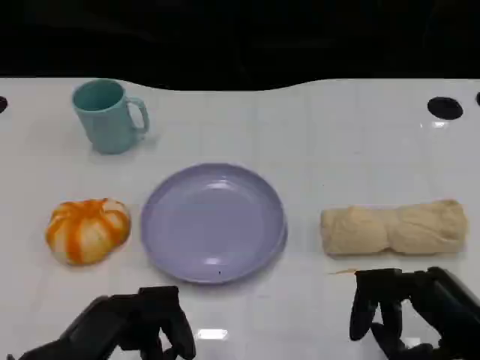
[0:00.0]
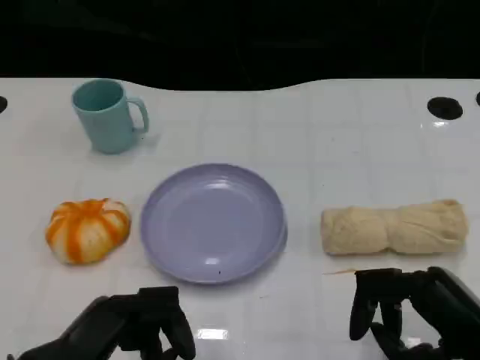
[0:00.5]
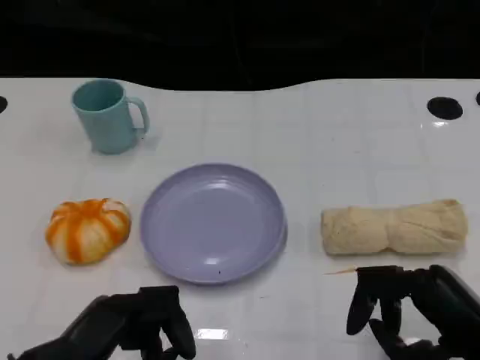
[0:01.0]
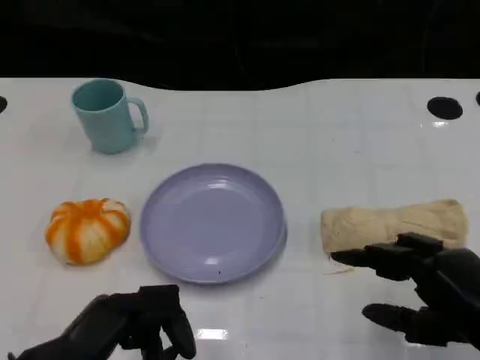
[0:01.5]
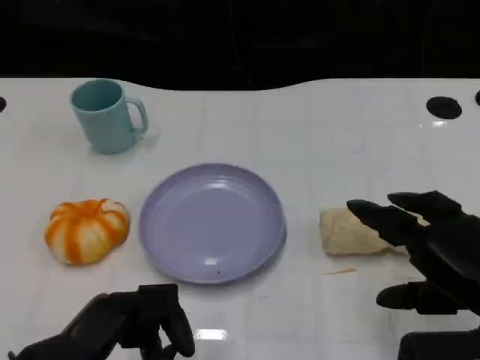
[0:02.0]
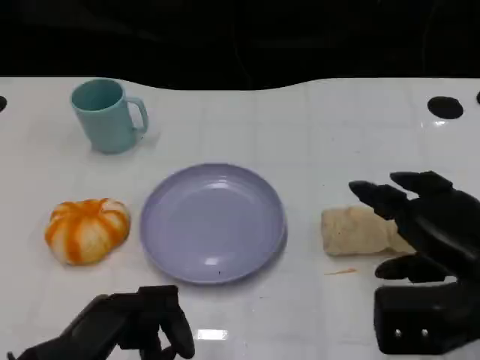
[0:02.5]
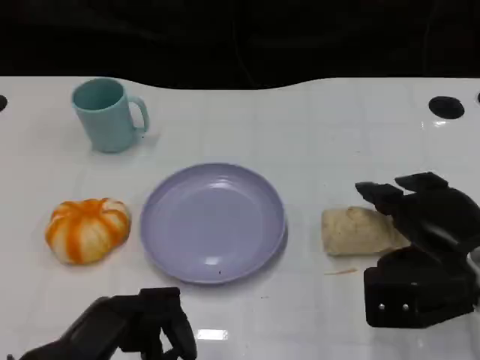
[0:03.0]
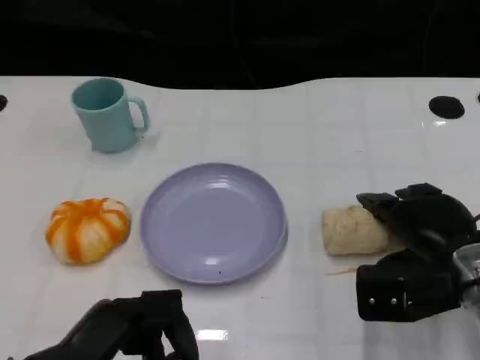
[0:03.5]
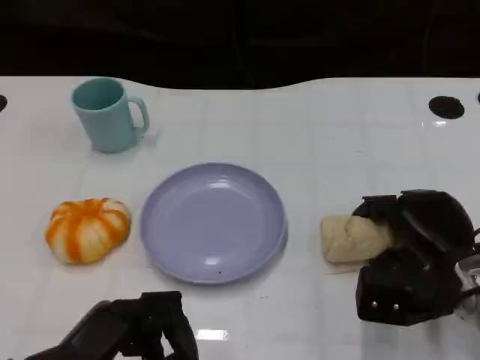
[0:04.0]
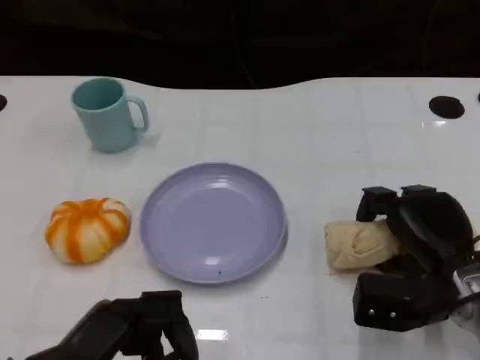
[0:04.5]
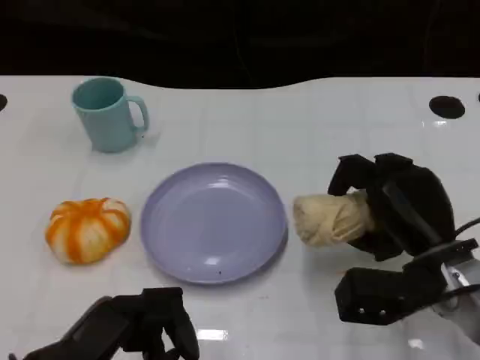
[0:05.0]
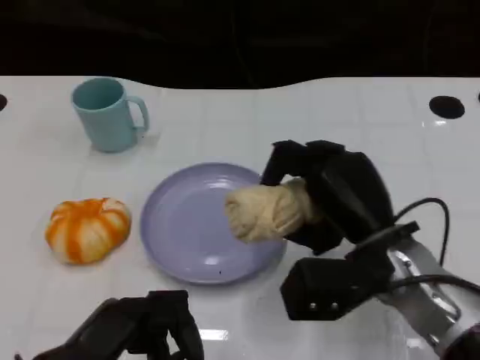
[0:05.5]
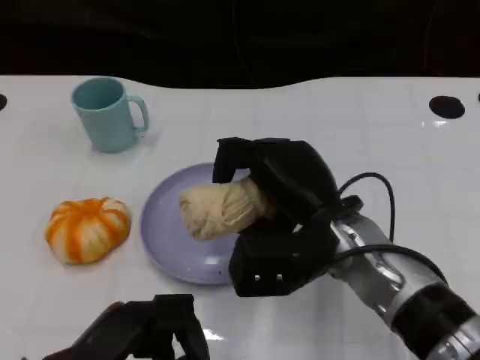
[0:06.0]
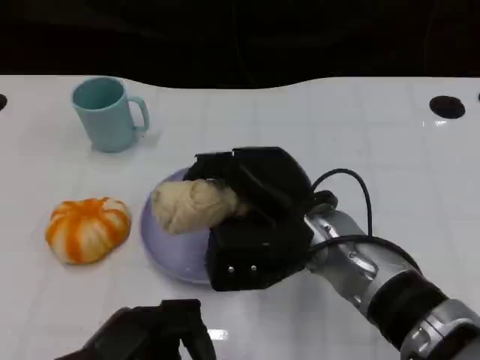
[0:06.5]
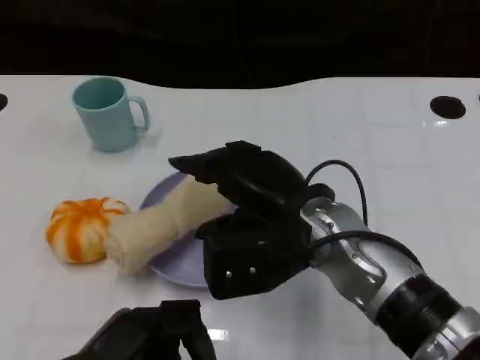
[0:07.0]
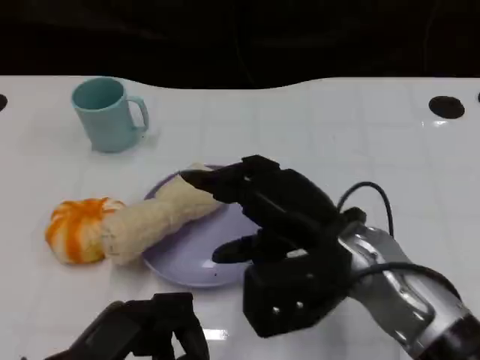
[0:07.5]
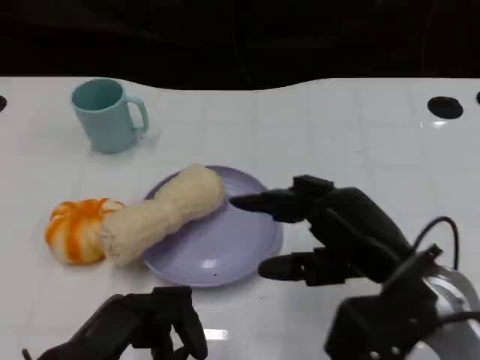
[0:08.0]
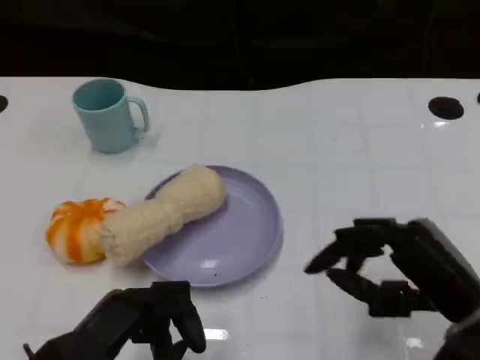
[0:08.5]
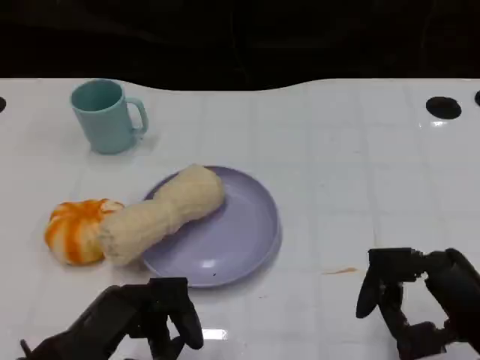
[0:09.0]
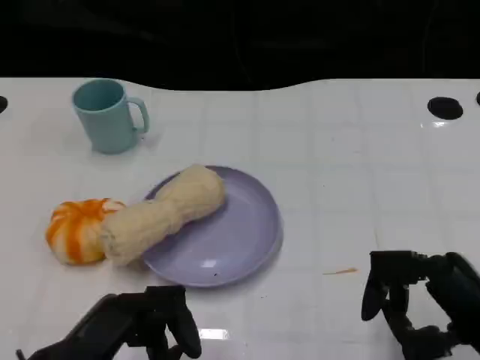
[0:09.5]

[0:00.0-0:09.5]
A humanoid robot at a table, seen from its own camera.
Task of the whole recording: Grasp the towel on the left side of the plate with the left hand and place it into the plate.
0:02.0 to 0:04.0: The right hand heads downward and forward, covering some 10 cm.
0:04.0 to 0:05.5: The right hand moves to the left and upward, some 10 cm.
0:07.5 to 0:09.5: The right hand shifts approximately 15 cm to the right and backward.

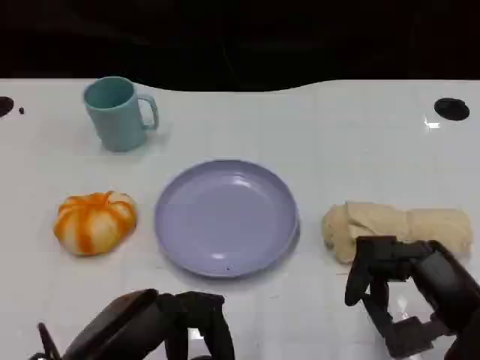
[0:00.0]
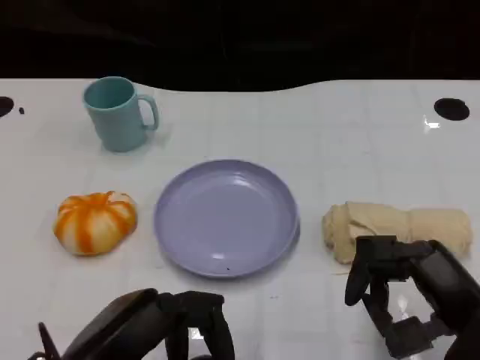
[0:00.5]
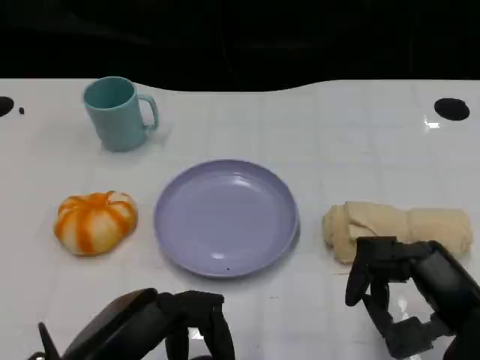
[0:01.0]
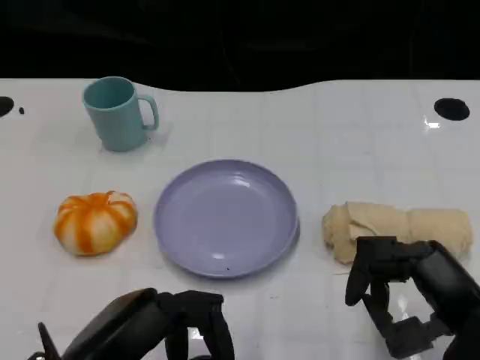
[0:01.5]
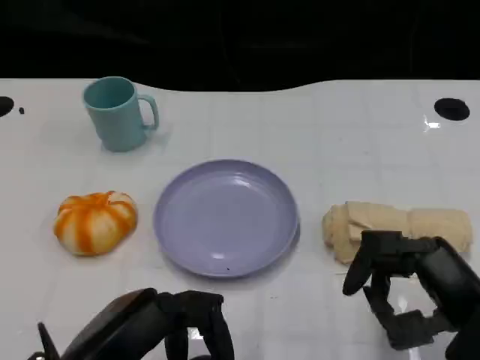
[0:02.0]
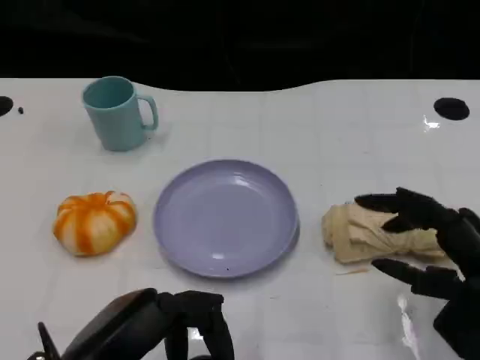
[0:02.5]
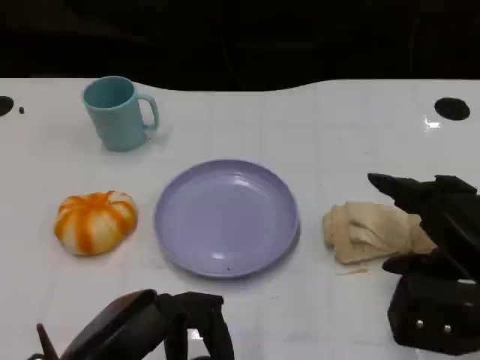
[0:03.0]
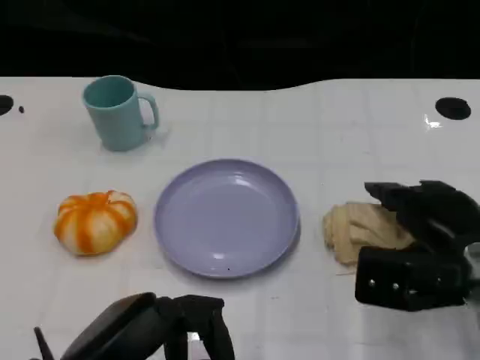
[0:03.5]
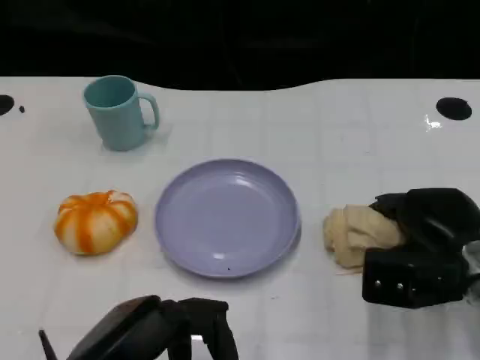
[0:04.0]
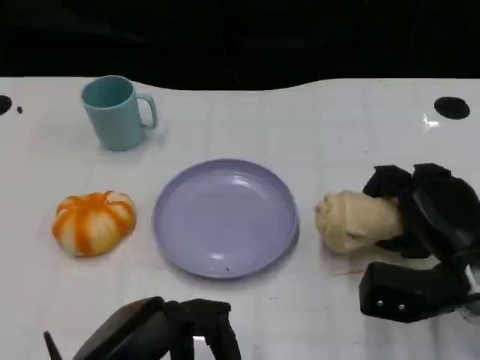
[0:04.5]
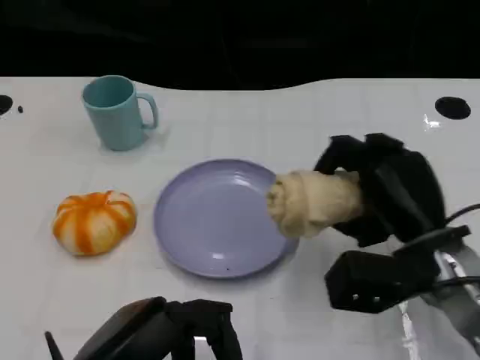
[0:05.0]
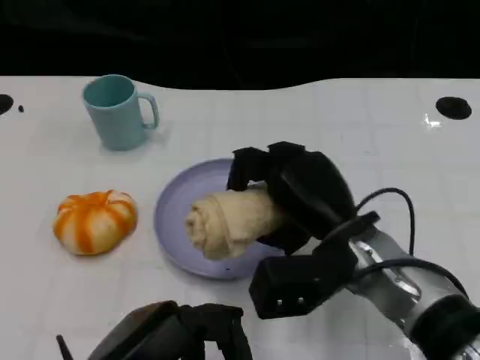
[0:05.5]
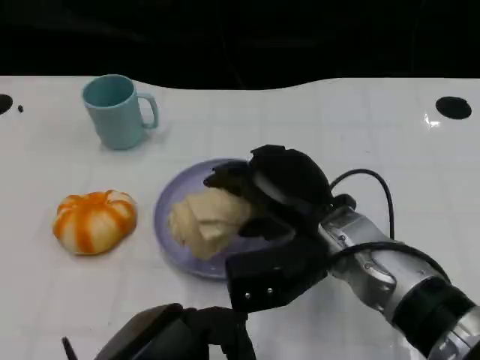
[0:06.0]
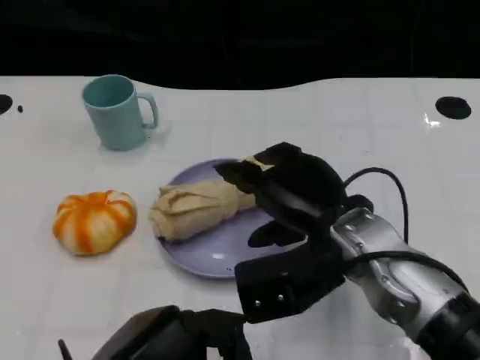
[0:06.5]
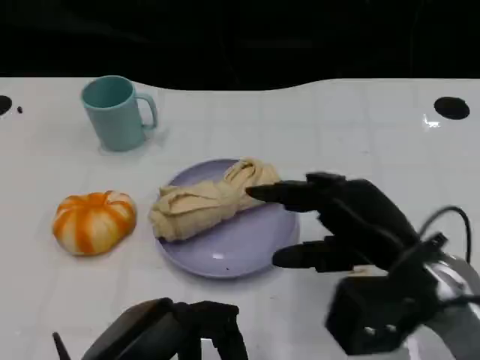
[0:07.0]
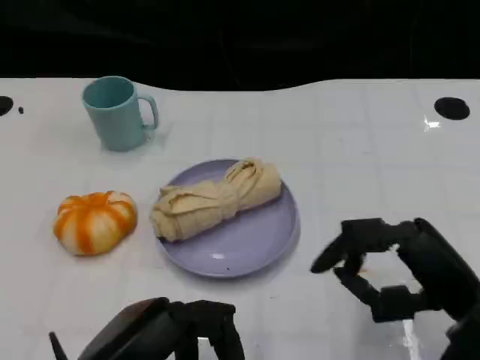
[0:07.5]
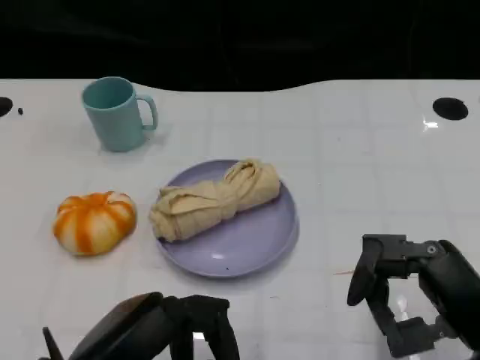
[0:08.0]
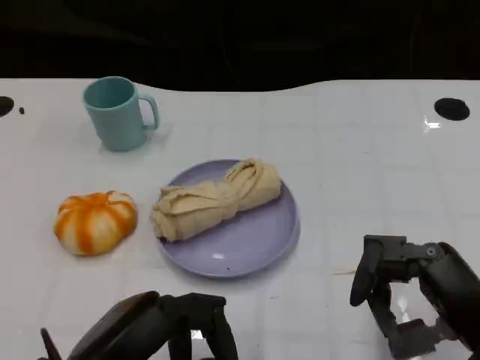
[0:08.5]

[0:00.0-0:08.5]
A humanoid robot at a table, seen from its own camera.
Task of the whole recording: Grasp the towel on the left side of the plate with the left hand and place it into the plate.
0:00.0 to 0:02.0: Both hands stay about where they are.
0:02.0 to 0:04.0: The right hand goes roughly 10 cm forward.
0:04.0 to 0:06.5: The right hand shifts about 15 cm to the left and upward.
0:06.5 to 0:08.5: The right hand is displaced to the right and backward by approximately 15 cm.

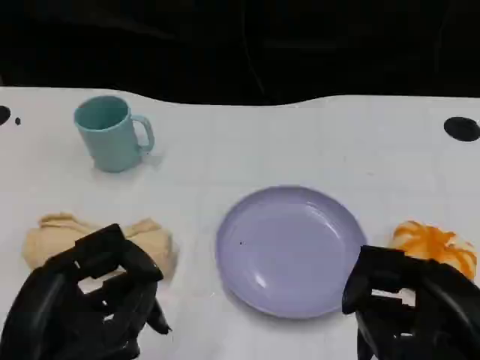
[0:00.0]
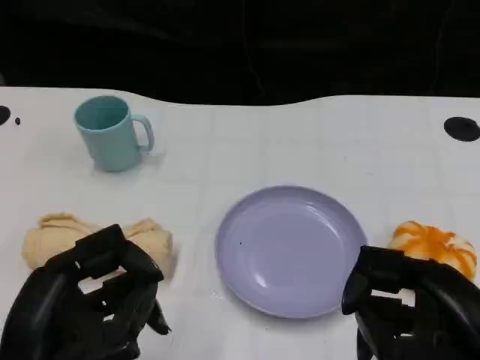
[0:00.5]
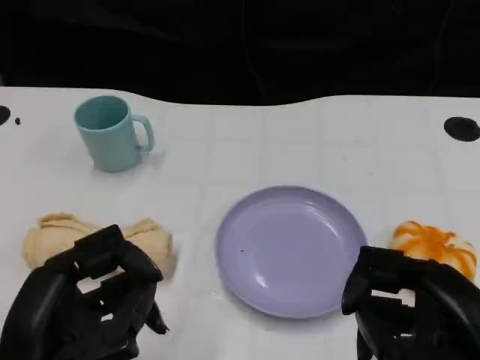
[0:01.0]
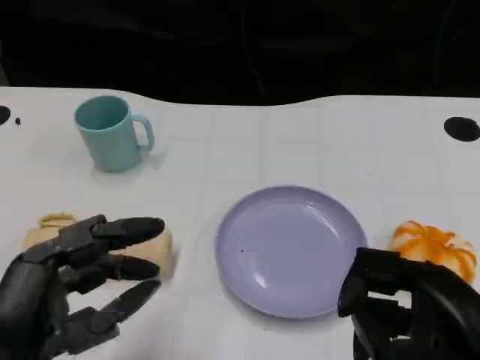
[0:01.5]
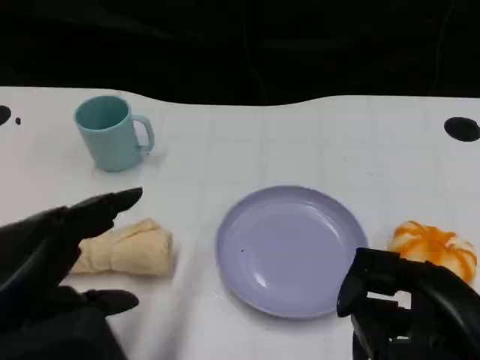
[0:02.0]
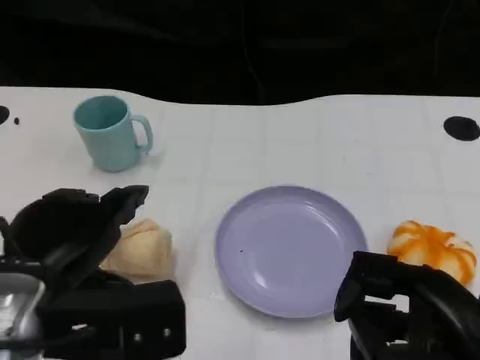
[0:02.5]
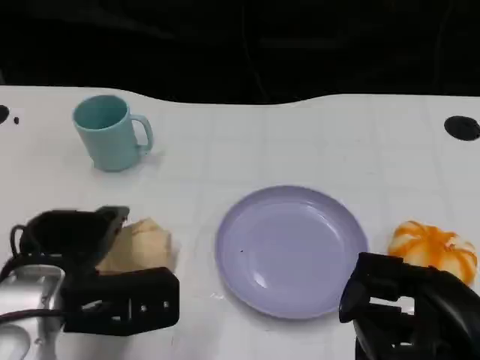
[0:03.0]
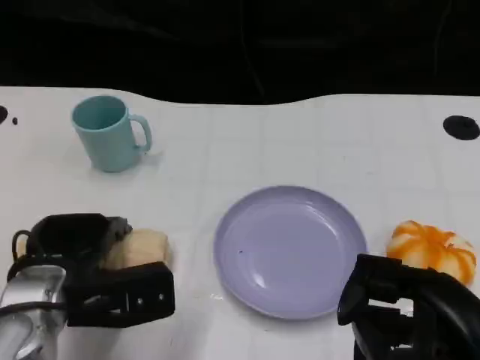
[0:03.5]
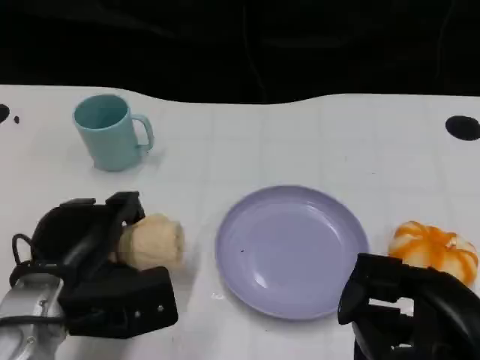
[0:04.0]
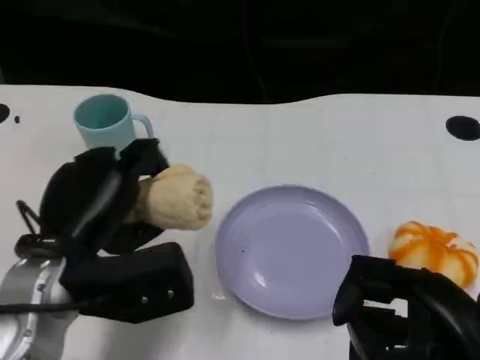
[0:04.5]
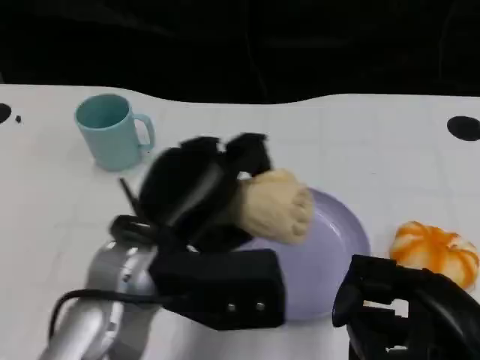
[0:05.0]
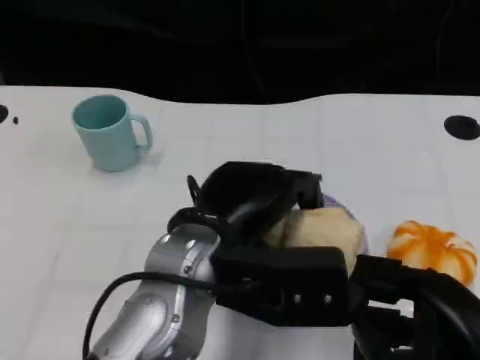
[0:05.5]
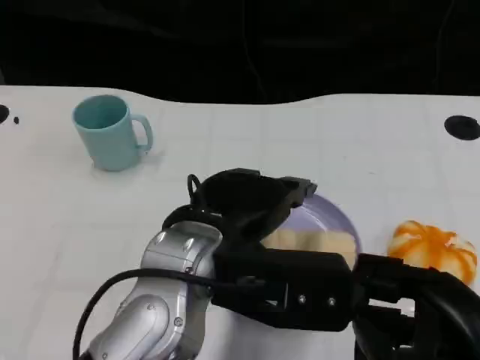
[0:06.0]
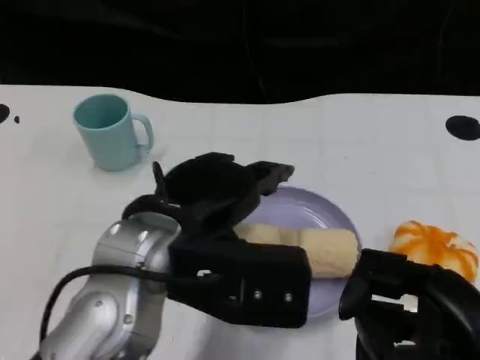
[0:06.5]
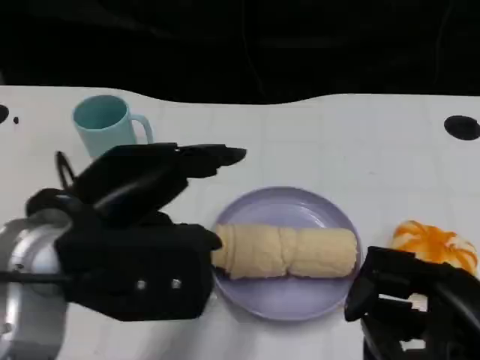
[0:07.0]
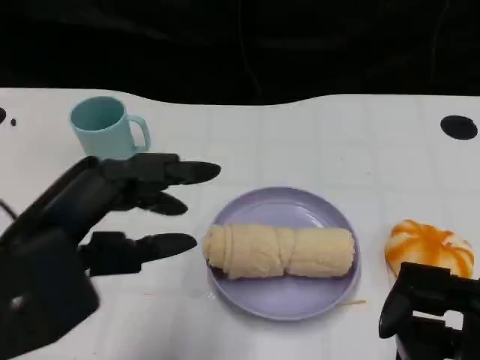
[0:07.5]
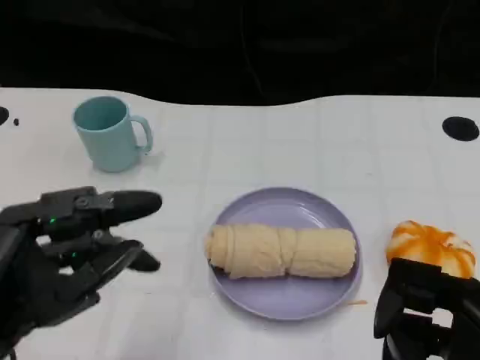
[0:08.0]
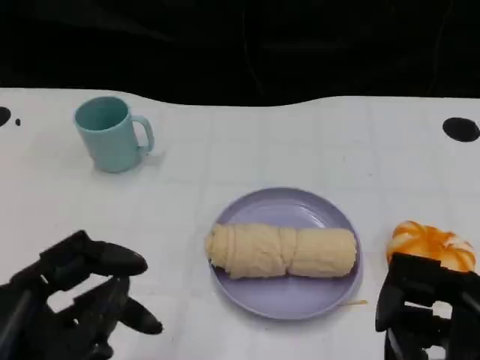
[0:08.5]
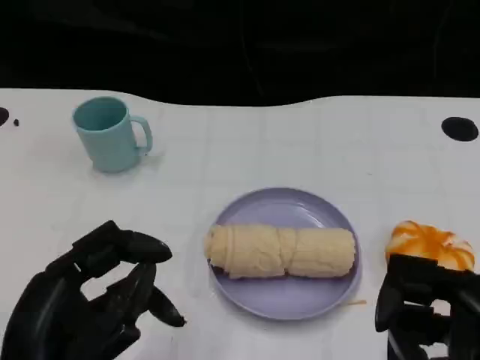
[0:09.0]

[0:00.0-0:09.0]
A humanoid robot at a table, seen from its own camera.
Task of the whole recording: Grasp the towel on the left side of the plate with the left hand and place it into the plate.
0:00.0 to 0:02.0: The left hand travels upward by some 5 cm.
0:02.0 to 0:04.5: The left hand moves forward and downward, about 10 cm.
0:04.5 to 0:07.0: The left hand travels upward by about 5 cm, and moves approximately 10 cm to the right and comes back.
0:07.0 to 0:09.0: The left hand goes about 10 cm backward and downward.
